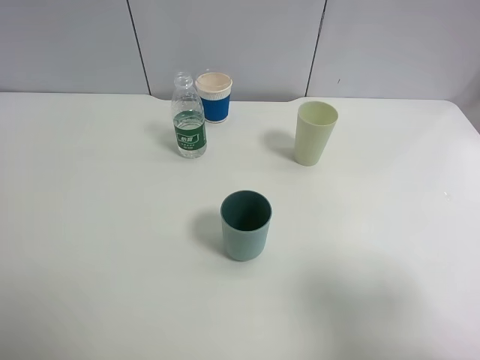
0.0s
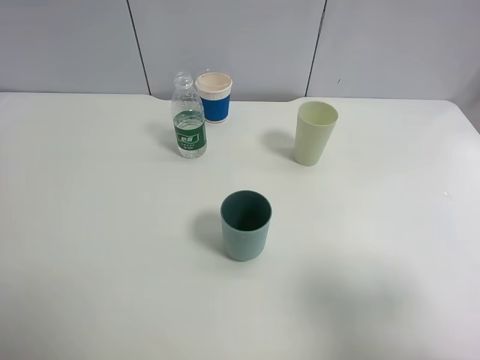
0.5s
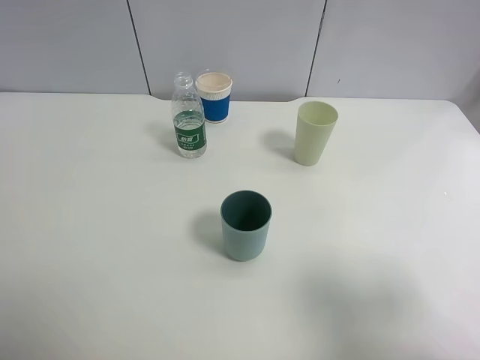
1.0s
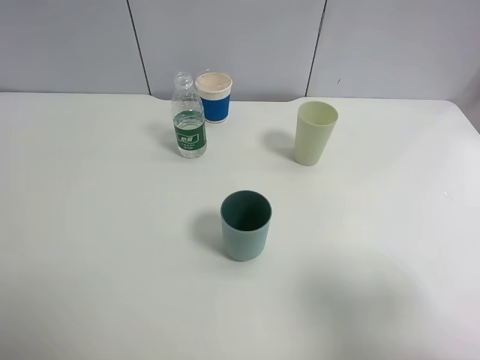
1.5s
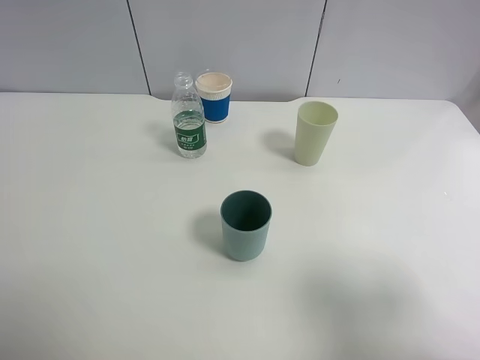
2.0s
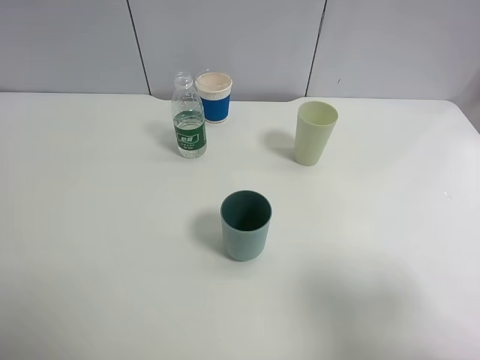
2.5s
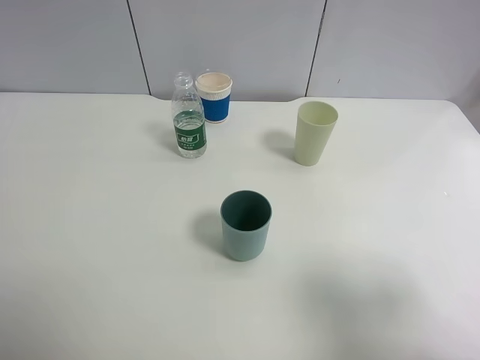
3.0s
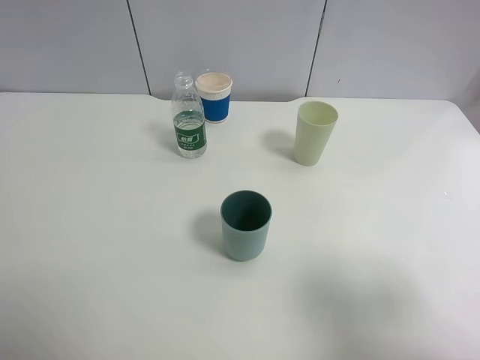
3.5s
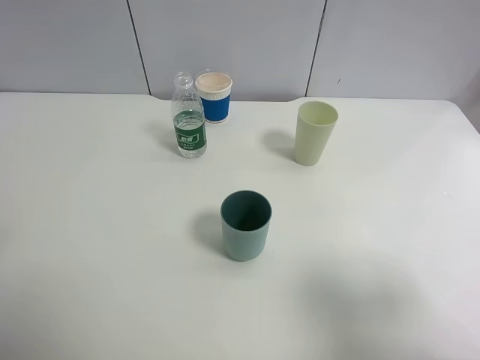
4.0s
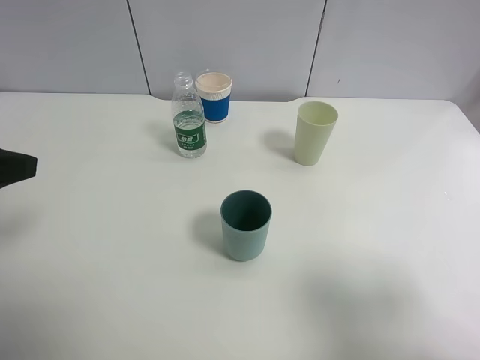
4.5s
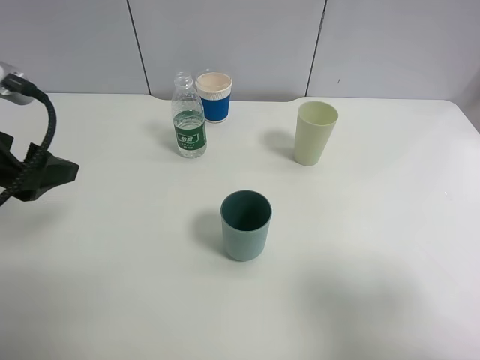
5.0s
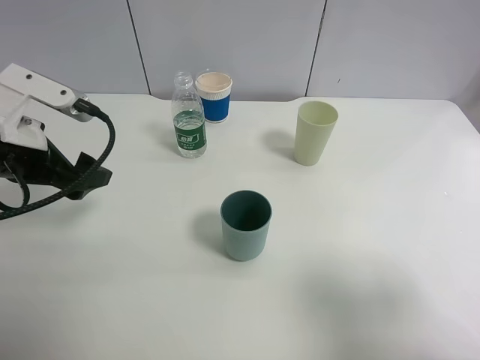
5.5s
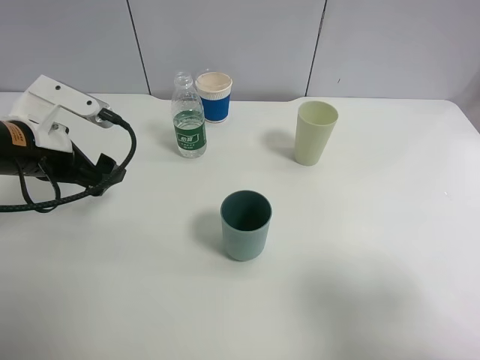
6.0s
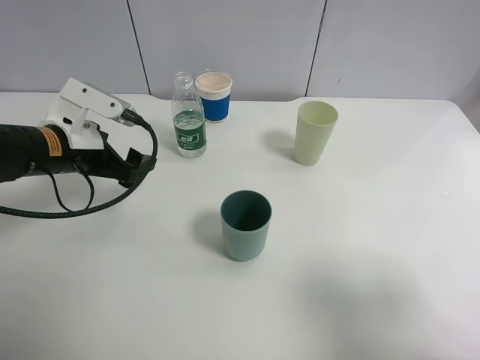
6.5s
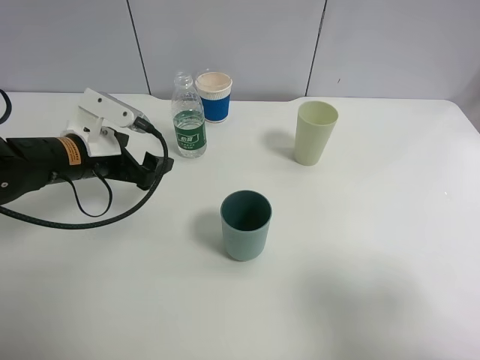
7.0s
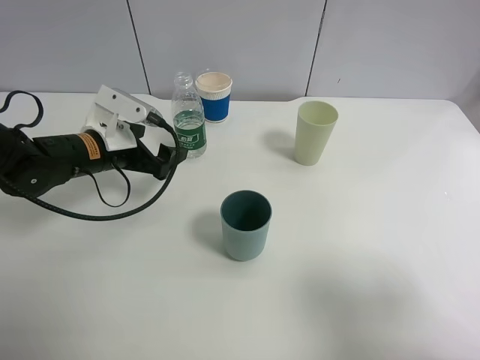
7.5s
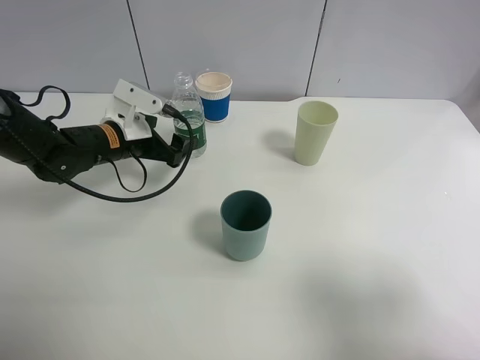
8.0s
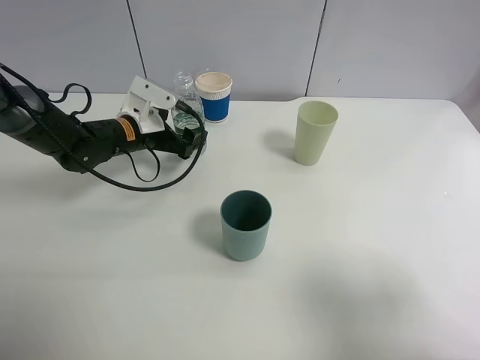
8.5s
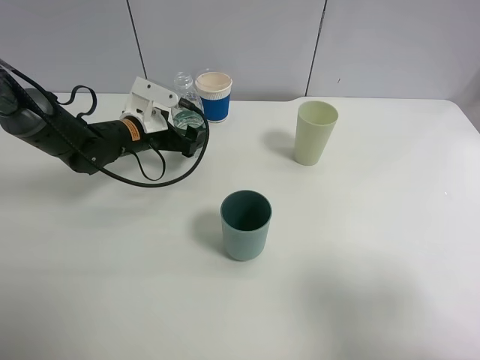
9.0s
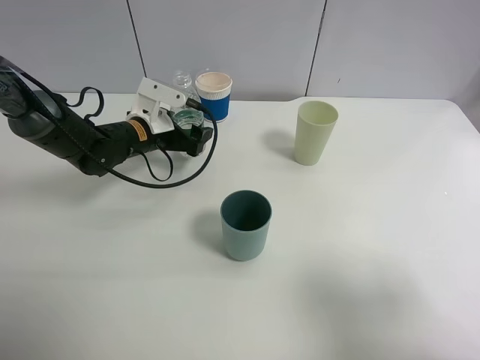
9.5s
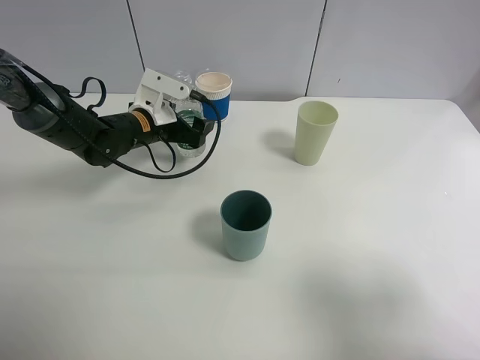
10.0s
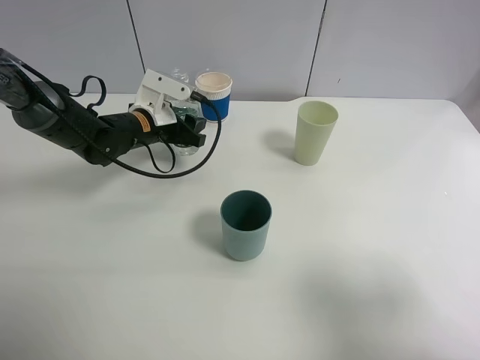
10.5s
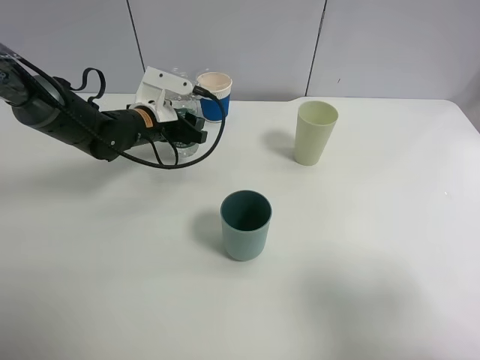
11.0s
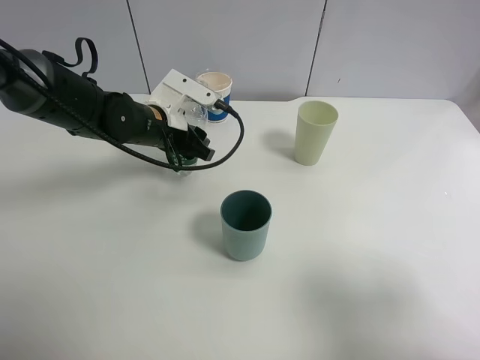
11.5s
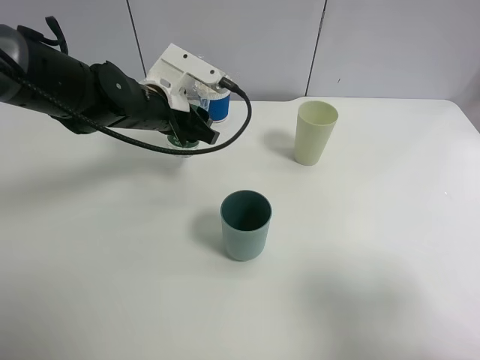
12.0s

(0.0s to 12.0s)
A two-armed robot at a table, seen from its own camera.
Task of the whole recording: use a clamp to hold the bottle of the drink, pour the beverage into a random cup, then clamp the cup containing the drink and pour the drink into another random cup.
Step, 0.0s - 11.5s: Pick up the water bottle with left gripper.
0.0s - 2.0s: The two grippers keep their place.
4.0s - 6.0s: The left gripper heads forward and downward, covering roughly 20 cm.
6.0s - 8.0s: The left gripper travels forward, downward and to the right by about 15 cm.
8.0s - 10.0s: The left gripper moves approximately 5 cm.
10.0s - 12.0s: The left gripper moves upward, about 5 cm, and closes its fingers.

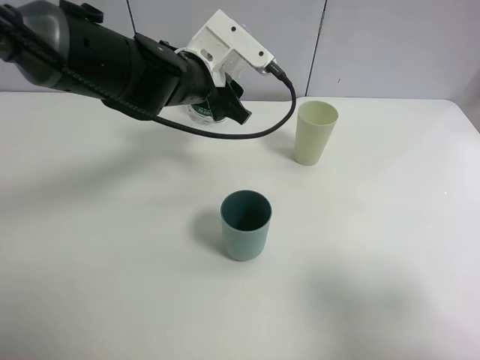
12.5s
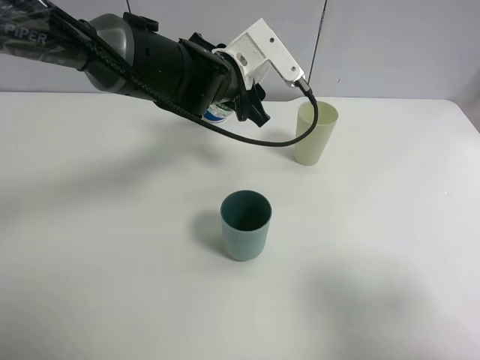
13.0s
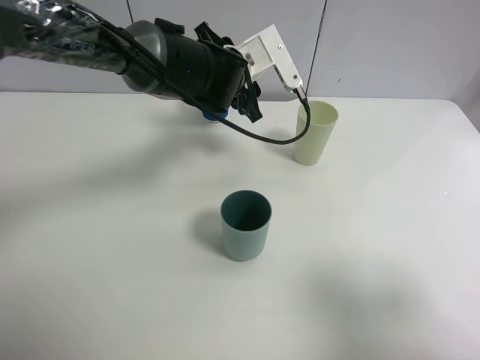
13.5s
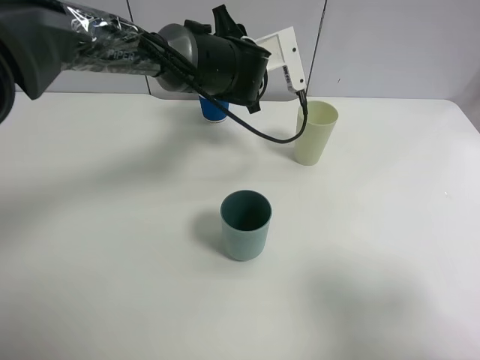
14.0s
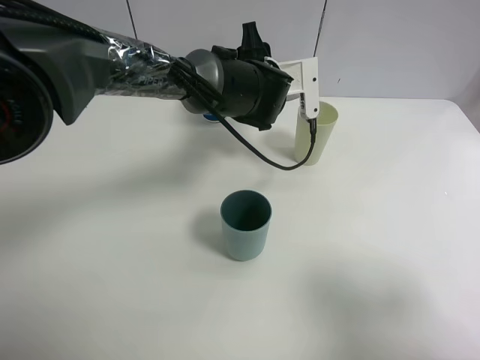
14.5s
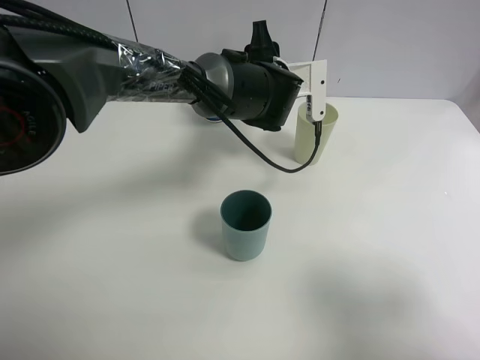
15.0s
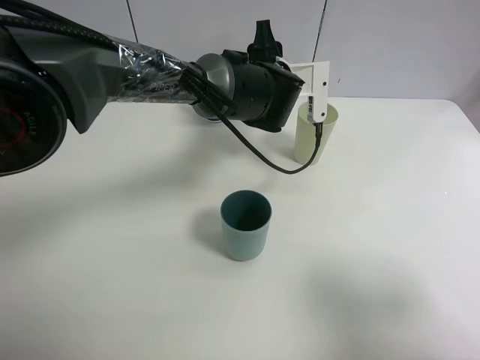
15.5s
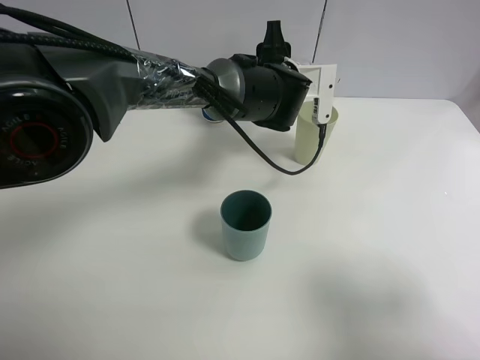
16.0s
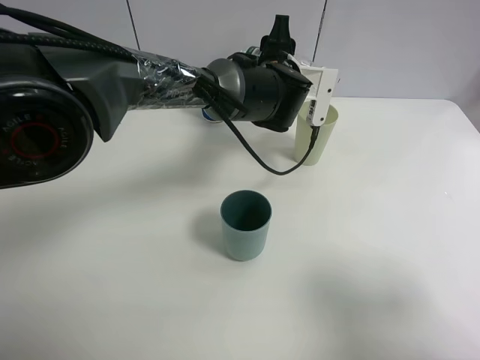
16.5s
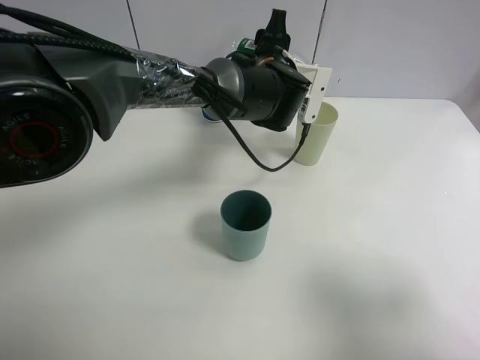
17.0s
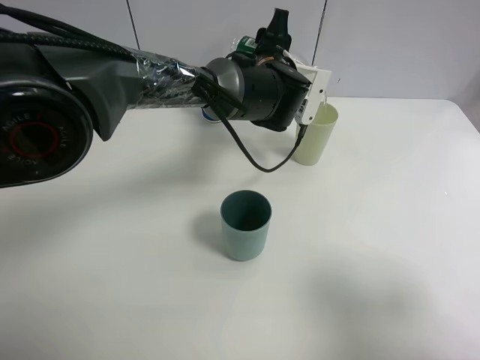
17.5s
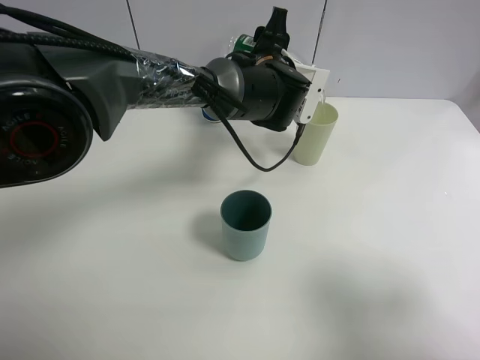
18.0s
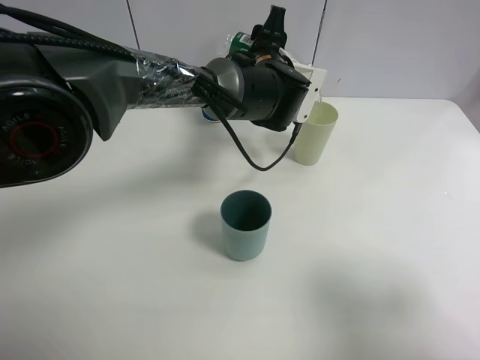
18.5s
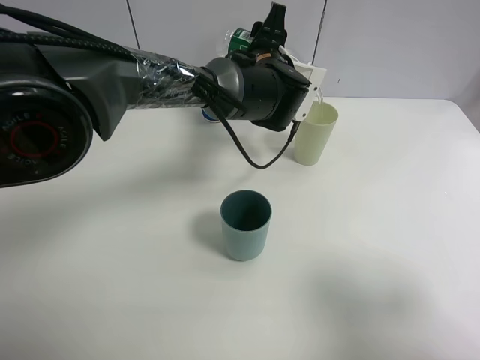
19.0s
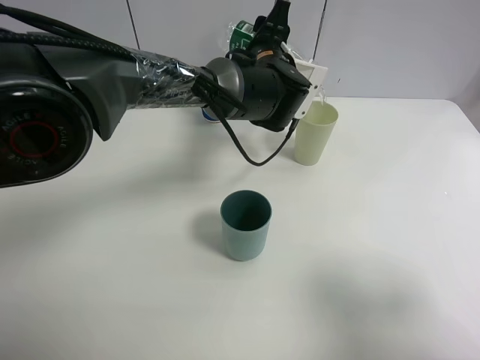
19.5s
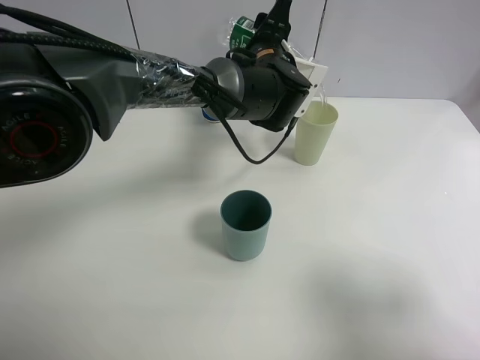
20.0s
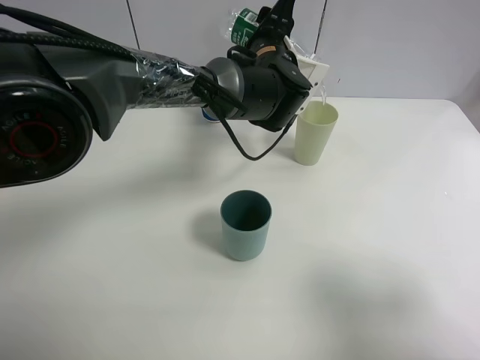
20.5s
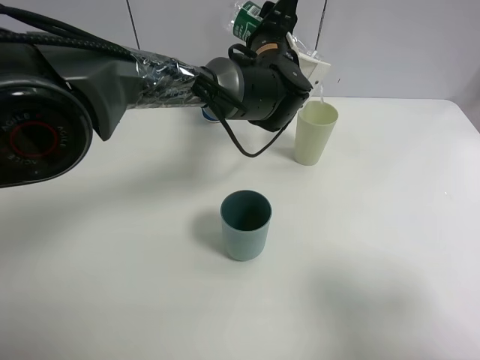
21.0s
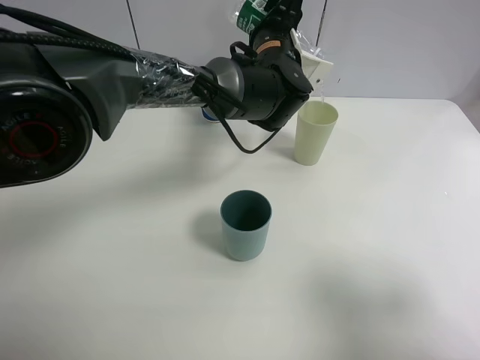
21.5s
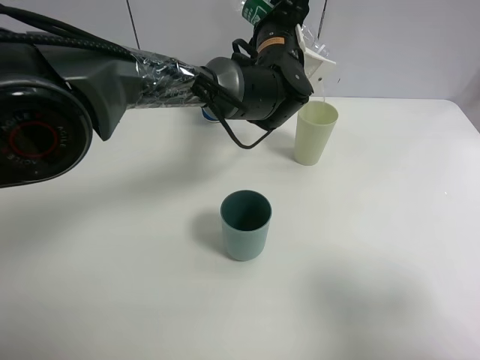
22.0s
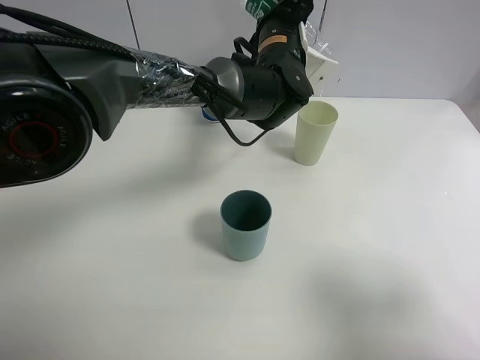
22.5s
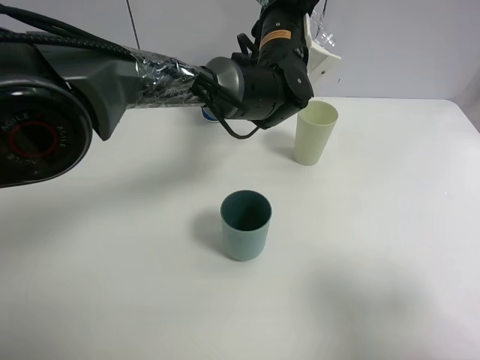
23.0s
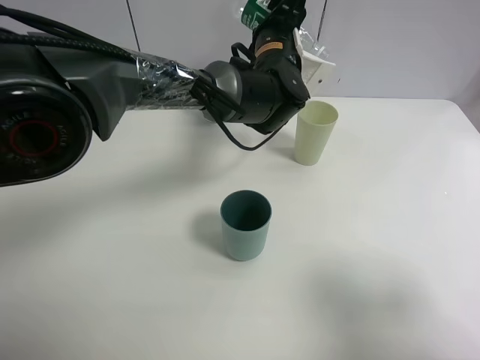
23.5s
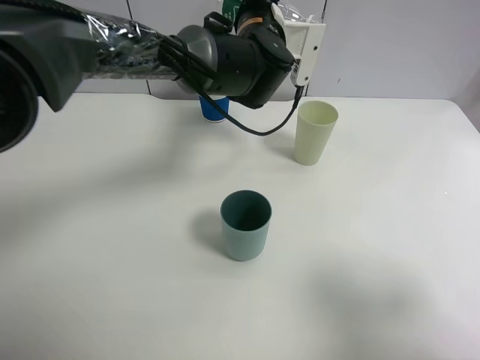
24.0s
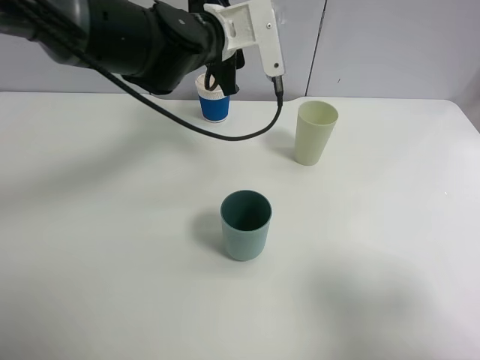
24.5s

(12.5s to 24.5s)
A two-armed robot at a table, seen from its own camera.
Task of the whole recording: use a clamp to hold the bottle of the drink, pour the beverage into a random cup, then clamp the cup containing the drink and pour the drink into another random cup.
Step, 12.5s - 24.0s: Pour the water into the green plastic cup with left gripper.
12.5s - 14.5s: The left gripper travels to the right by about 10 cm.
14.5s - 16.5s: The grippers move only a little.
16.5s - 20.5s: The grippers move only a little.
20.5s - 22.5s: There are only small adjustments of the grippers.
22.5s - 24.5s: The left gripper moves to the left, approximately 10 cm.

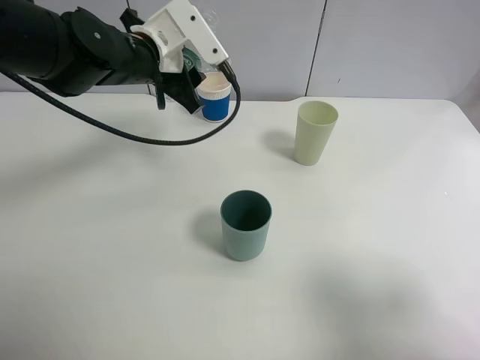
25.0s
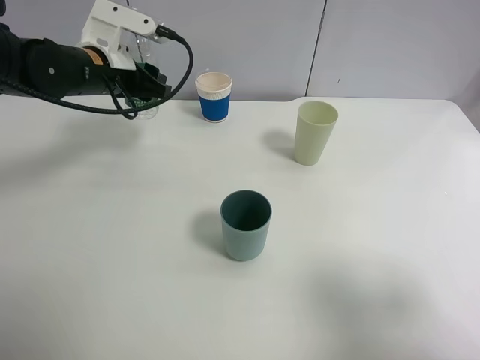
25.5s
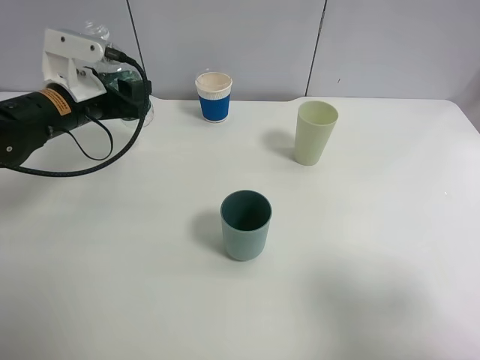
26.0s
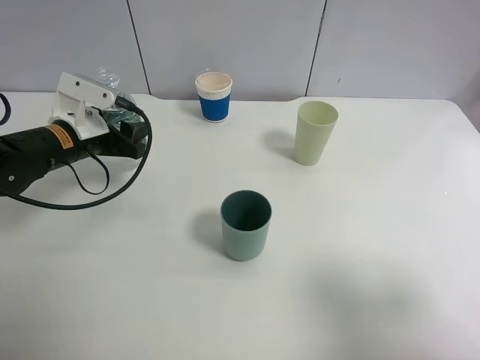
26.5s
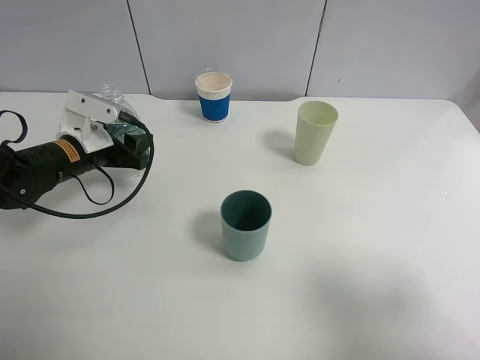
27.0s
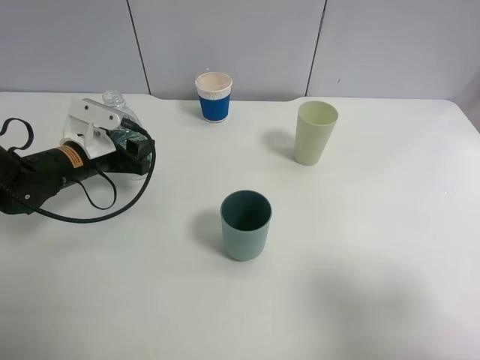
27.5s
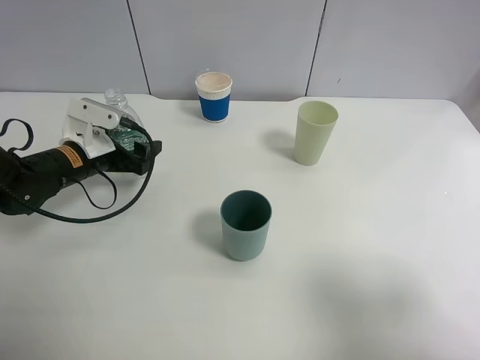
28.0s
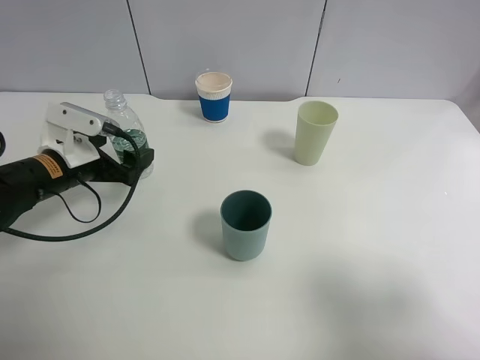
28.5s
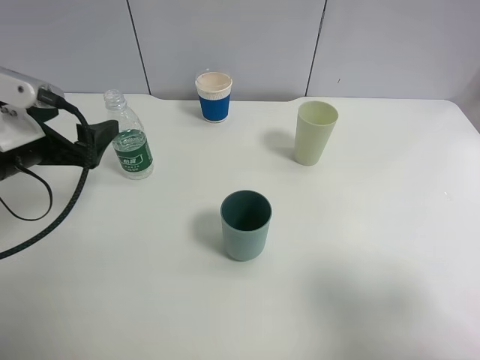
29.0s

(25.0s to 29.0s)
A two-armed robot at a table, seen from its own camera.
Task of the whole recording: use a clamp to hold the bottle of the drink, pour the beverage into a random cup, then clamp the cup containing the drink and pour the drink into another random cup.
Step, 25.0s - 29.0s: Place the water bottle on the table with left gripper.
25.0s - 27.0s: The left gripper goes about 15 cm downward and to the left.
27.0s - 29.0s: The left gripper goes about 15 cm upward and backward, and opens up.
